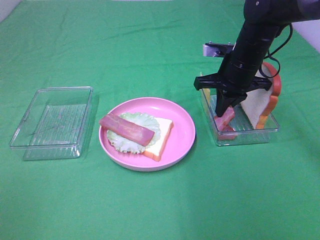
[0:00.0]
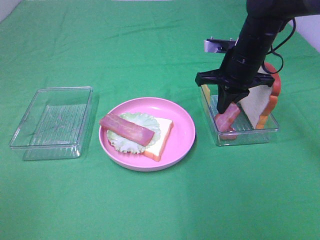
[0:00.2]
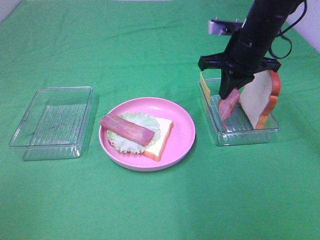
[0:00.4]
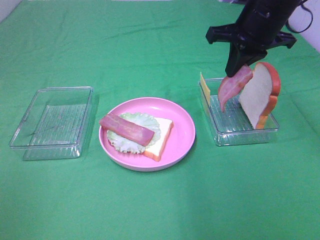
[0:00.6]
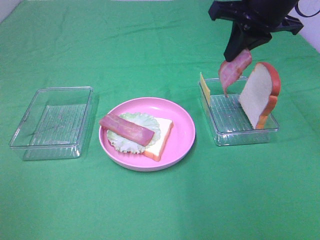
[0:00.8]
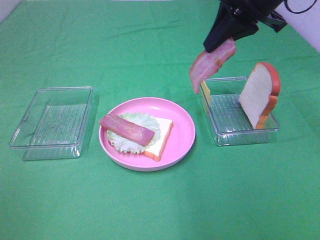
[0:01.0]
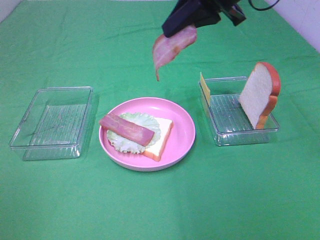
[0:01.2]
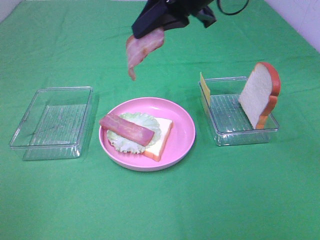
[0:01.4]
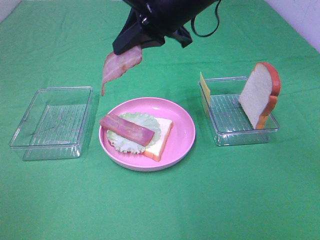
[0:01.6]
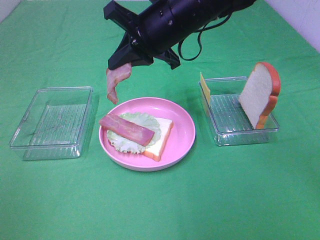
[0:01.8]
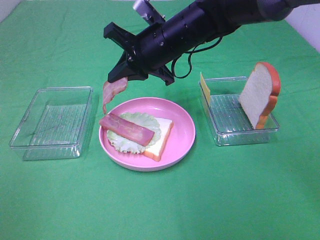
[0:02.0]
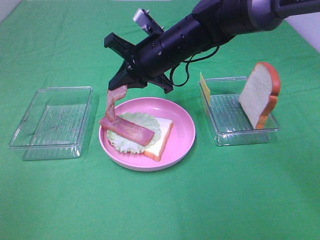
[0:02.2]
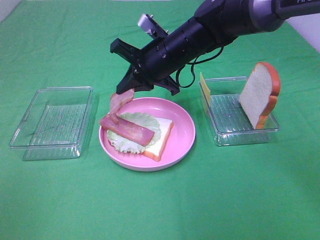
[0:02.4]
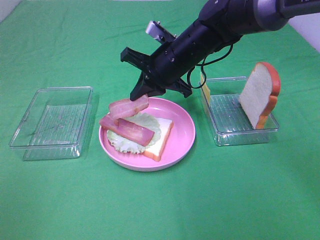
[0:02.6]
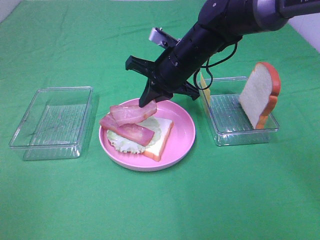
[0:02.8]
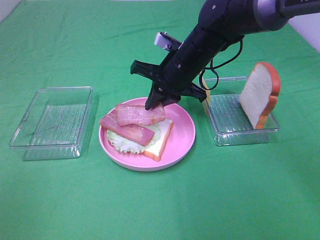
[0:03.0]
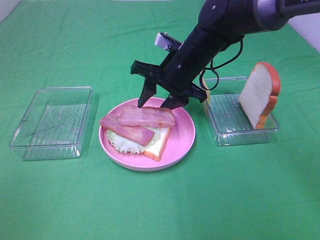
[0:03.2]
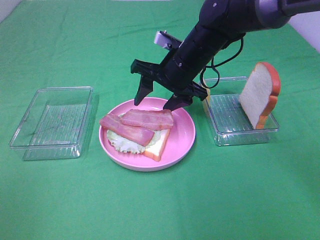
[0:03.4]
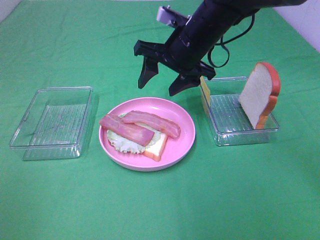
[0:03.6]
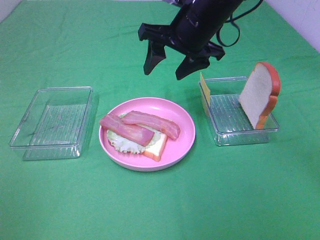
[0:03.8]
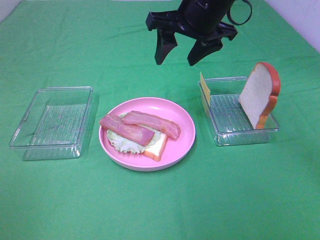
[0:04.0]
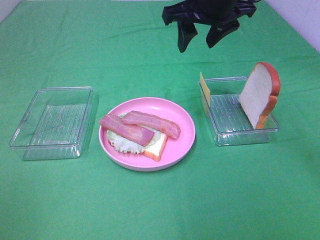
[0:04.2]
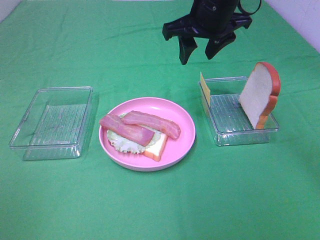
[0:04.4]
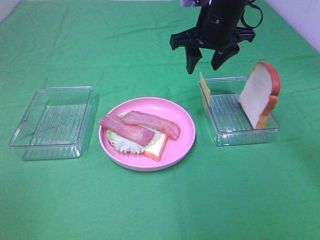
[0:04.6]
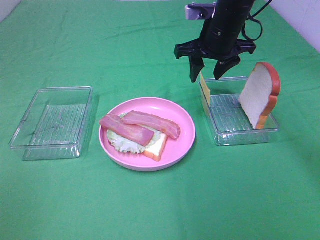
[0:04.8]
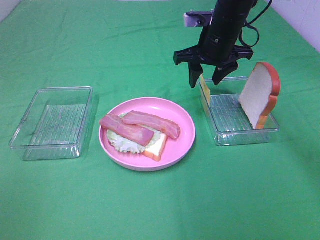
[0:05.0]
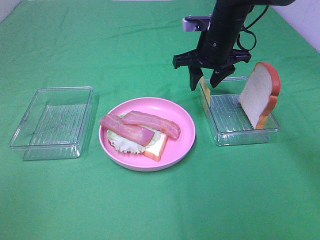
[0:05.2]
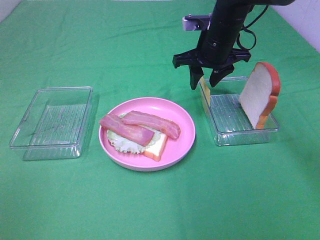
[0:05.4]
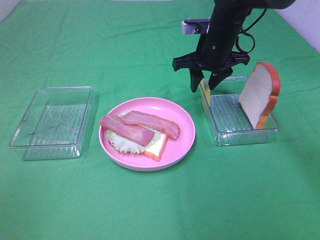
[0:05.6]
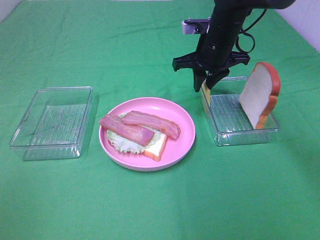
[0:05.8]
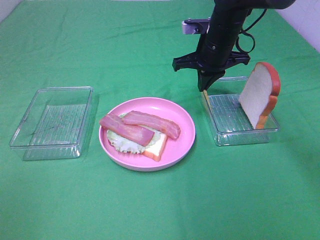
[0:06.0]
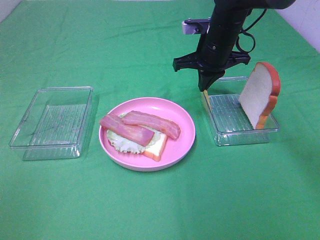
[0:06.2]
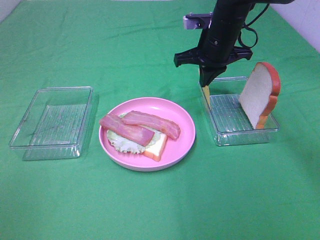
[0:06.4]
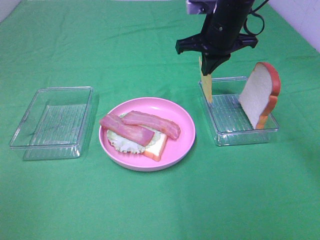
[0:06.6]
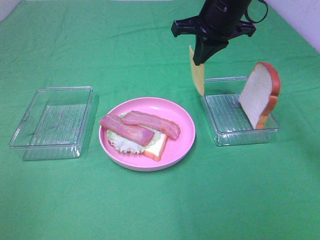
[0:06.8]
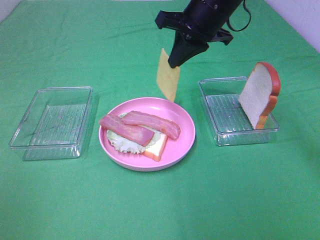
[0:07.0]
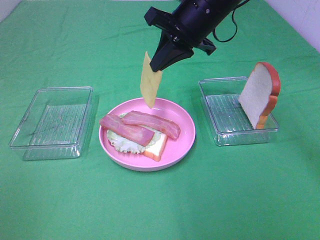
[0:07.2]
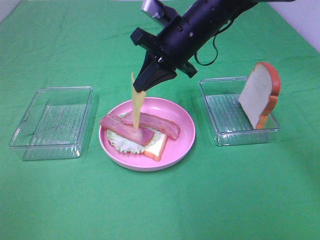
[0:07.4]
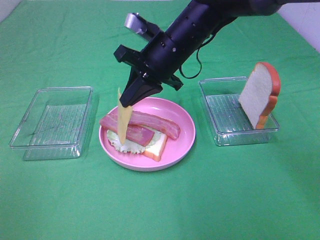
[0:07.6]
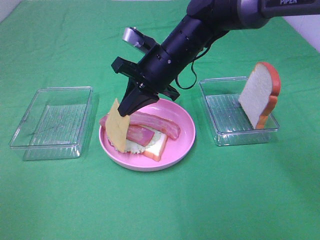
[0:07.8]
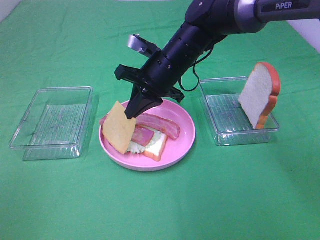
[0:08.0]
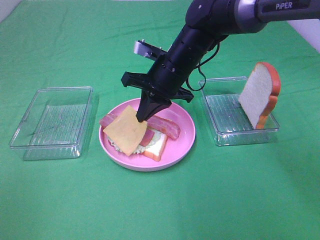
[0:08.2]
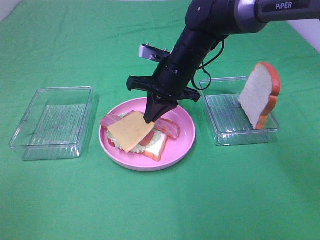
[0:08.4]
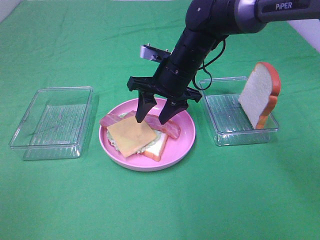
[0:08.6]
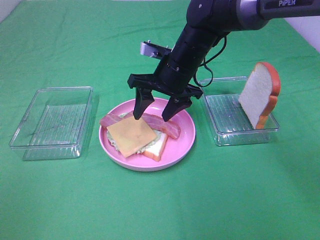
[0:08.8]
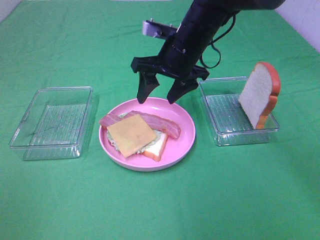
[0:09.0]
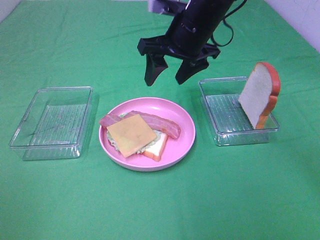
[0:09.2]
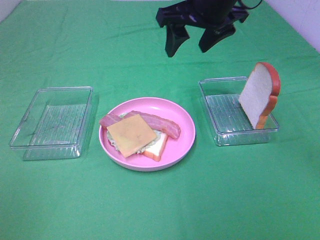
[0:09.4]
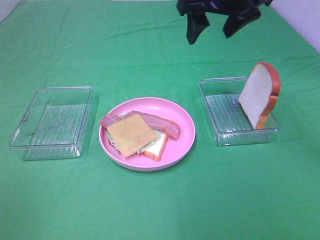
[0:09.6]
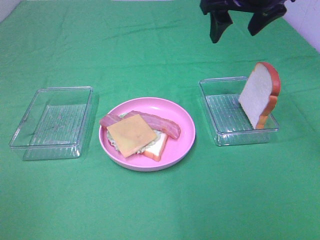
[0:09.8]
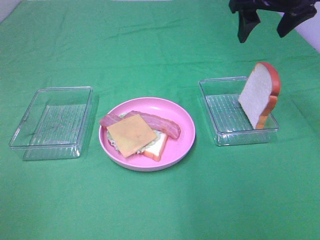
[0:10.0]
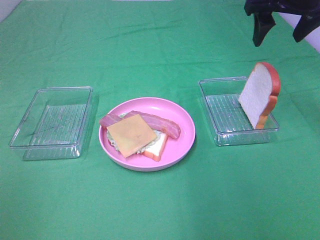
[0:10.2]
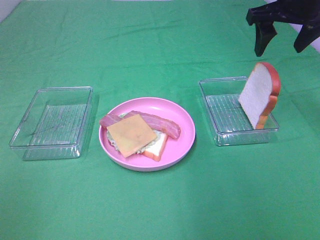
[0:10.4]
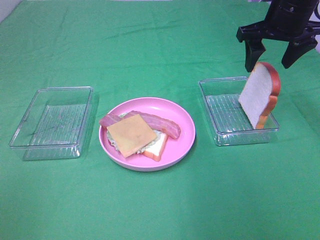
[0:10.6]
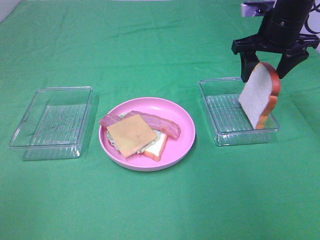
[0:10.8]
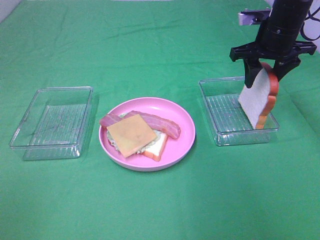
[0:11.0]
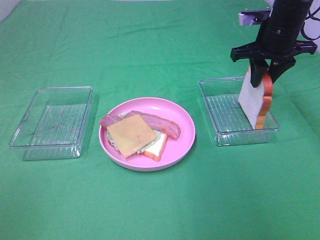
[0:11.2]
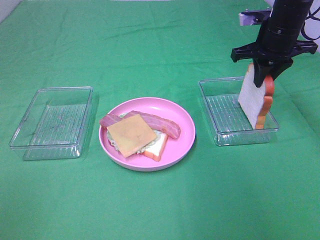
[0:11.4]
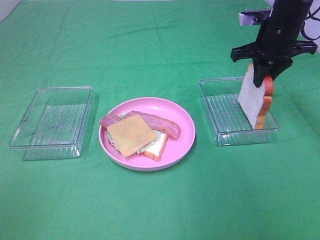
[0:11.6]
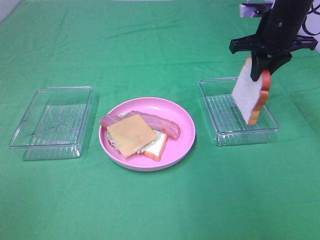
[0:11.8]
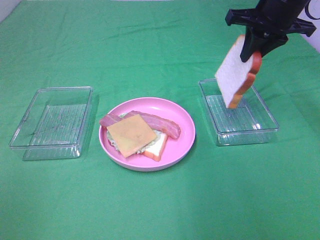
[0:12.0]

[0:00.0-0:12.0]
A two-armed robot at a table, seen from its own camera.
Task of the whole recording: Make sandwiches.
Step, 0:00.2 to 0:03.6: Right hand:place bacon on bacon.
Step, 0:03.8 to 0:06.2: Right hand:grab the cheese slice.
Step, 0:06.4 to 0:08.4: Right hand:place the cheese slice on top of the bacon.
Step, 0:08.6 to 0:11.6: Right hand:grab the bread slice.
0:00.0 to 0:01.6: The right gripper shifts some 20 cm upward, to the left and backward.
0:01.6 to 0:03.0: The right gripper moves downward, some 10 cm.
0:03.0 to 0:04.4: The right gripper is displaced upward by about 10 cm, and opens its fingers.
0:04.4 to 0:06.0: The right gripper shifts some 10 cm downward, and closes.
0:06.0 to 0:07.6: The right gripper is displaced to the left and backward by about 10 cm.
0:07.6 to 0:09.0: The right gripper opens up.
0:09.0 to 0:10.4: The right gripper heads to the right and upward, covering approximately 20 cm.
0:10.4 to 0:12.0: The right gripper closes its fingers.

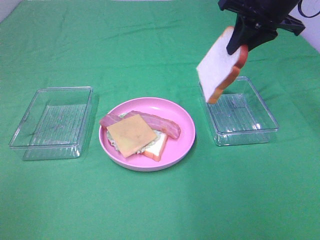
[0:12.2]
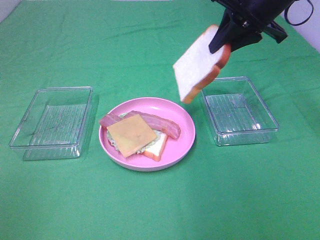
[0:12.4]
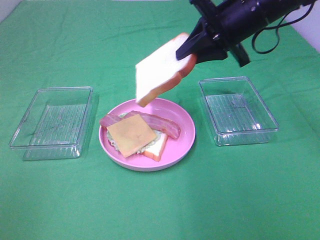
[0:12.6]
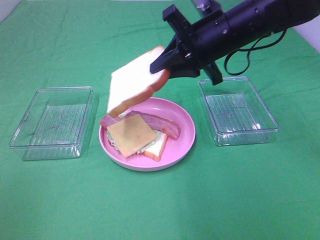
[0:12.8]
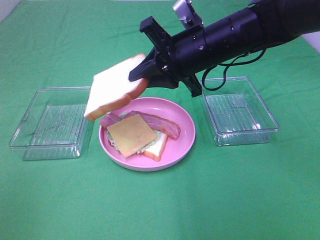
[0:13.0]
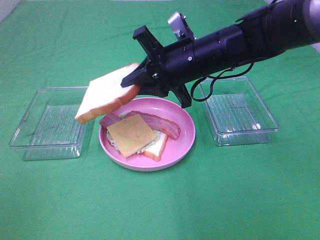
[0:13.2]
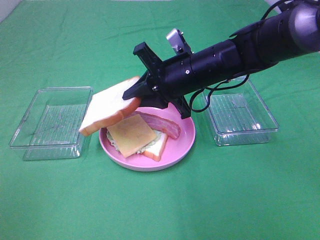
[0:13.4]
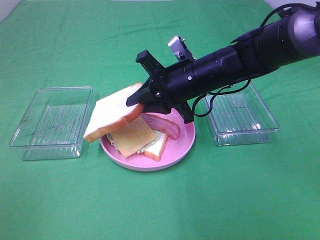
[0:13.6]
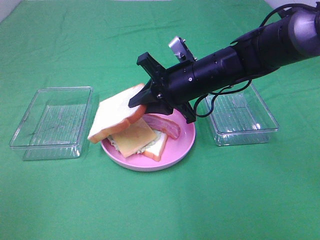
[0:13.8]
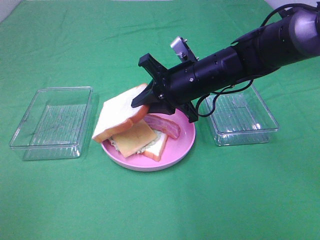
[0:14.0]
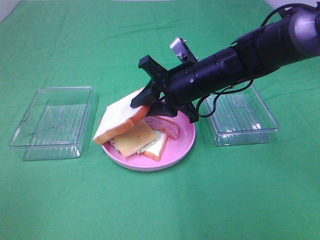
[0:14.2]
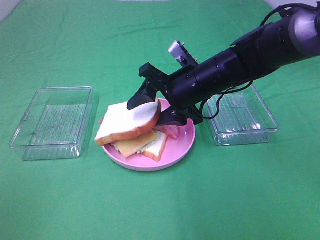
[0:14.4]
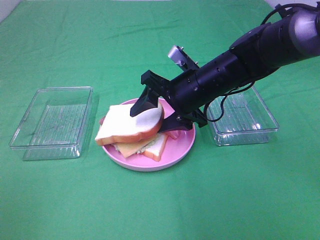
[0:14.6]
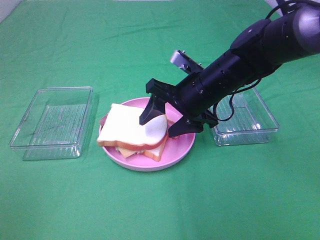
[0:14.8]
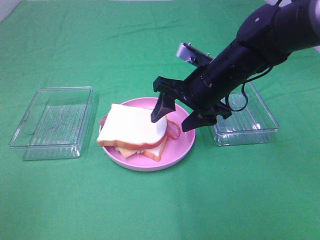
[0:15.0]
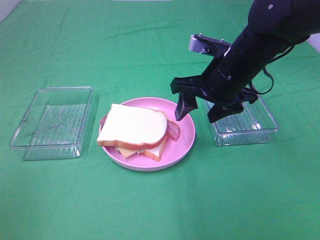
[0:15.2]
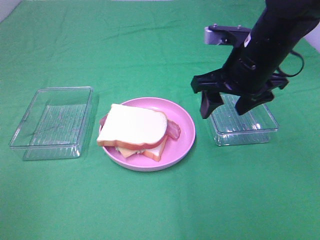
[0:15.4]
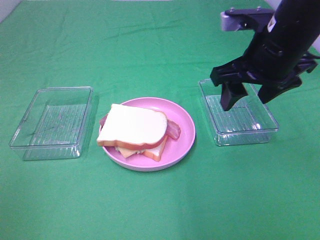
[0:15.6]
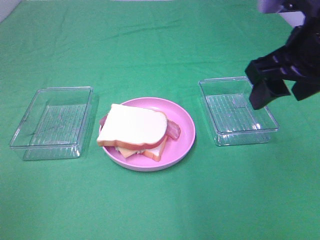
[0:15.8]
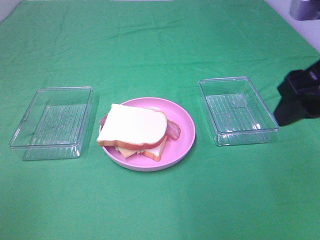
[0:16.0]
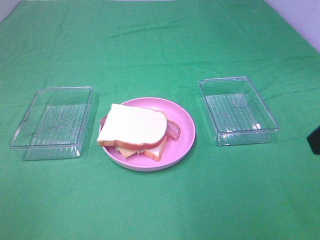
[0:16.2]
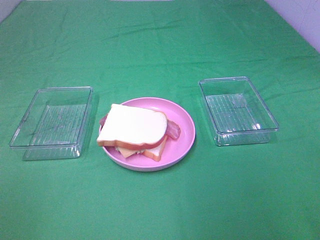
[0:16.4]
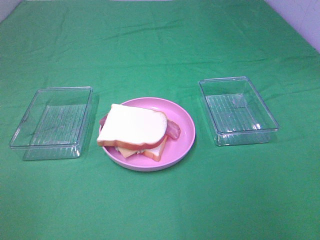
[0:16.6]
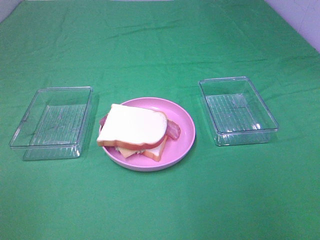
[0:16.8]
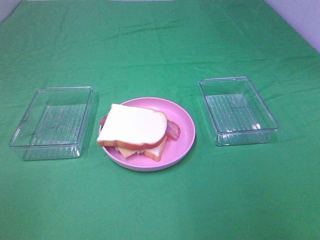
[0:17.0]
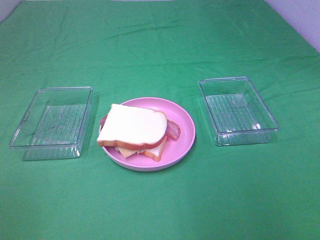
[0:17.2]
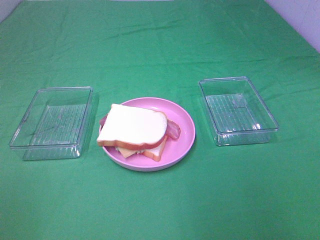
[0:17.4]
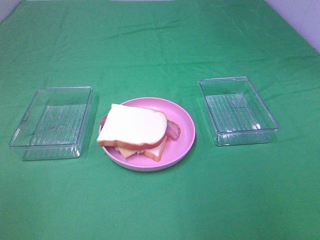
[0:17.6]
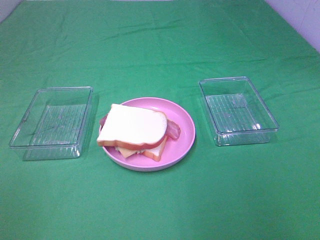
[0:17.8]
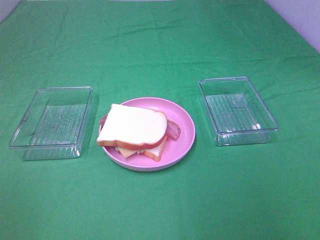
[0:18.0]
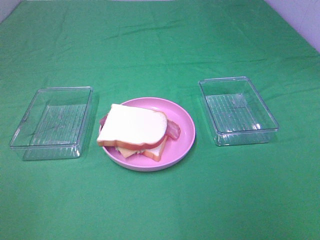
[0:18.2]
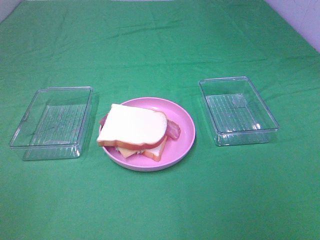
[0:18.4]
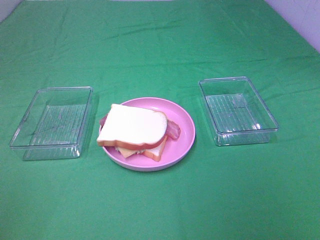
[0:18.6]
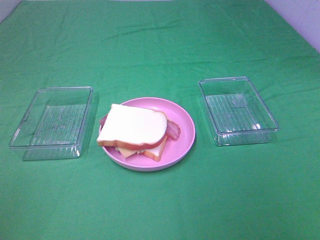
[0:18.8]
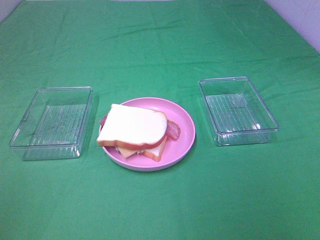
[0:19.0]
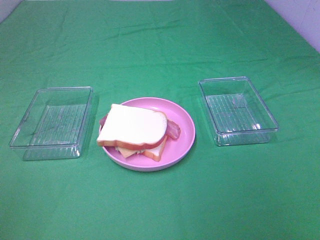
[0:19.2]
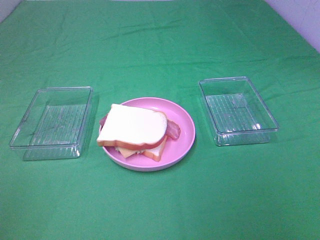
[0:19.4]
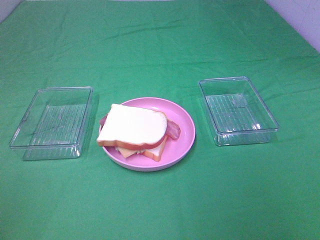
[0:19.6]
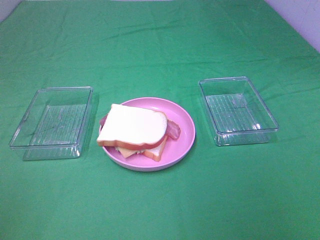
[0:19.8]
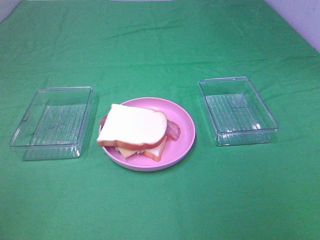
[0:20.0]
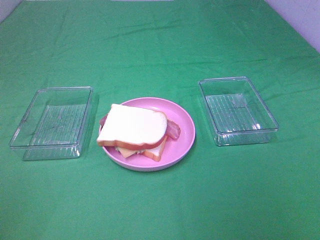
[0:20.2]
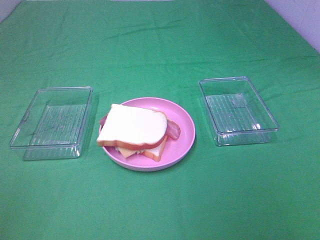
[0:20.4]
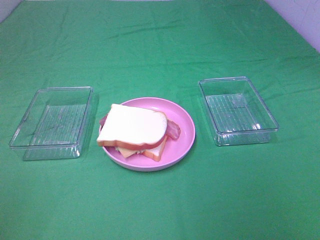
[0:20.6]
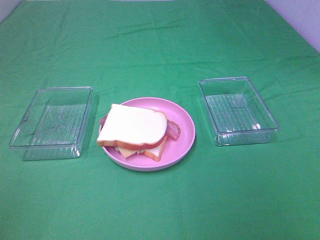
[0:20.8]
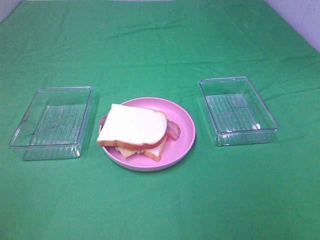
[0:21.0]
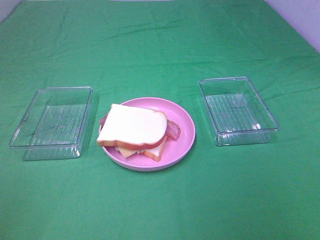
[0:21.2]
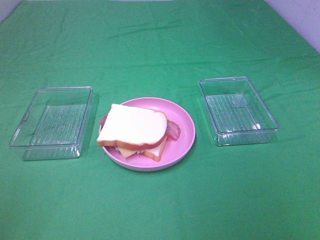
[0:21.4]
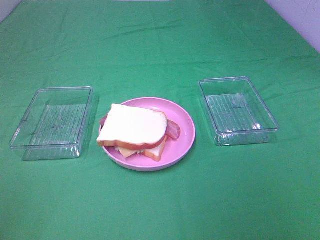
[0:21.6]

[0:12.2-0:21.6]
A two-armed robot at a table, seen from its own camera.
Task of the whole recording: Make sandwiches.
Step, 0:12.2 to 0:15.0: Right hand:place the bread slice on the cheese slice.
0:12.2 to 0:13.8: The right gripper goes approximately 20 cm downward, to the left and backward.
0:13.8 to 0:15.4: The right gripper heads upward and to the right, covering about 10 cm, and opens up.
0:15.4 to 0:17.0: The right gripper shifts about 30 cm backward and to the right.
0:20.0 to 0:21.6: Both grippers stay about where they are.

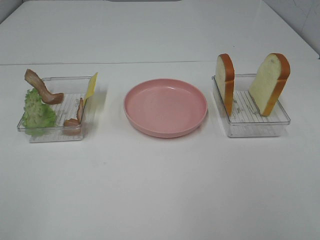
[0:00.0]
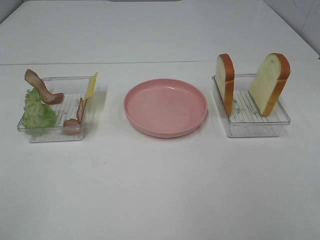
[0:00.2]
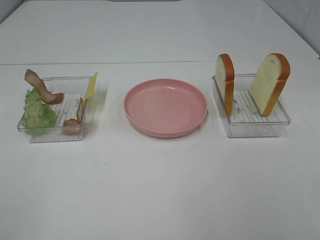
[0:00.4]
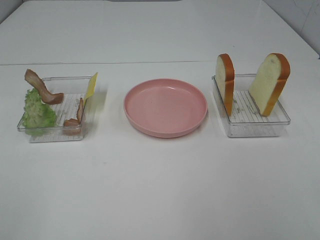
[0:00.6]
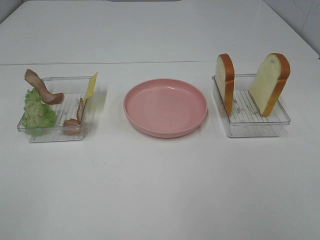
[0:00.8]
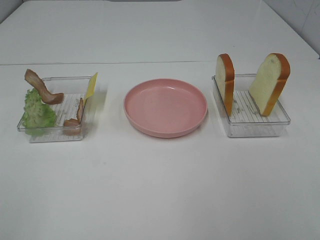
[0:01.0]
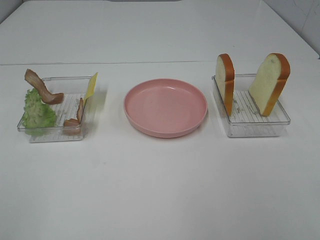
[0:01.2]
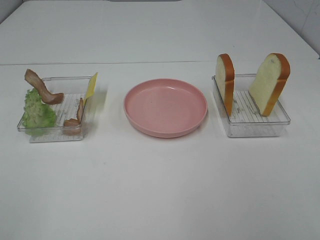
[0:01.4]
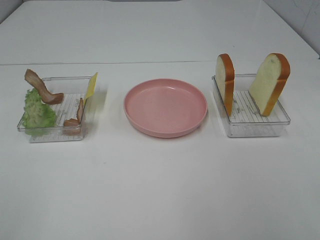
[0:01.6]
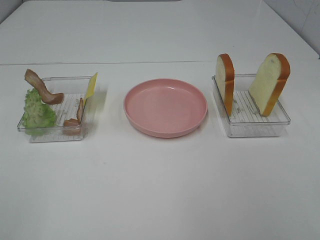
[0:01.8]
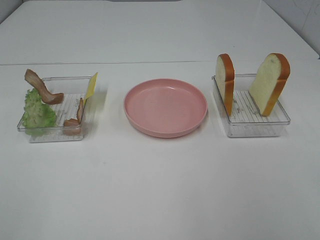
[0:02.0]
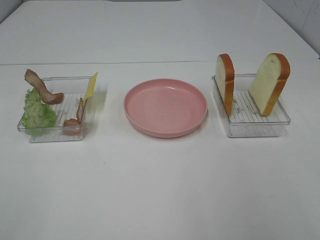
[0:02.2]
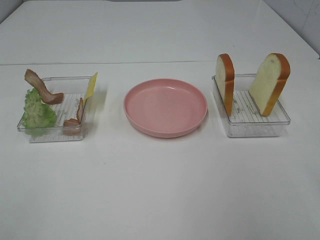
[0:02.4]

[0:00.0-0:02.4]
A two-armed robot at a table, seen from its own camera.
Task of the whole recording: Make sandwiches.
0:00.0 to 0:01.2: The two grippers keep their place.
